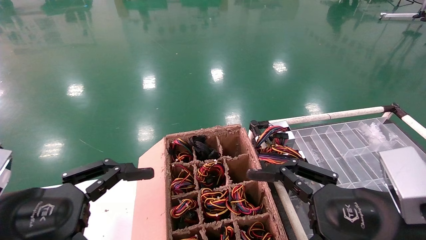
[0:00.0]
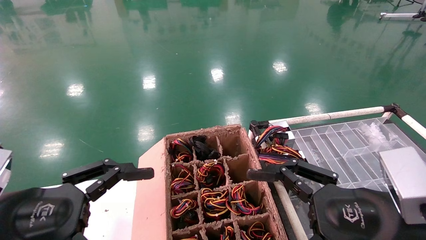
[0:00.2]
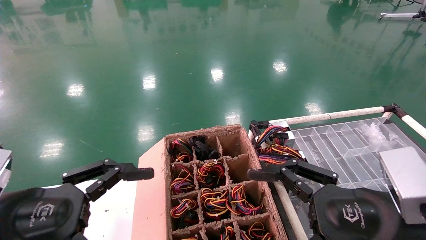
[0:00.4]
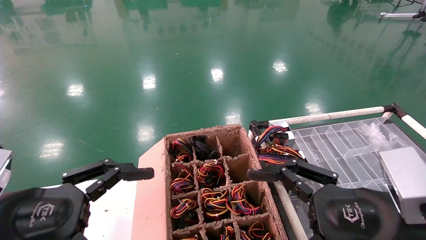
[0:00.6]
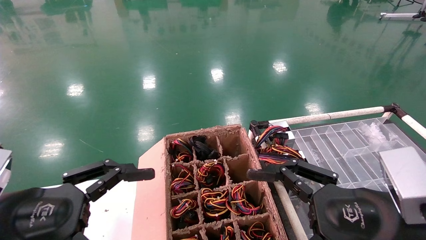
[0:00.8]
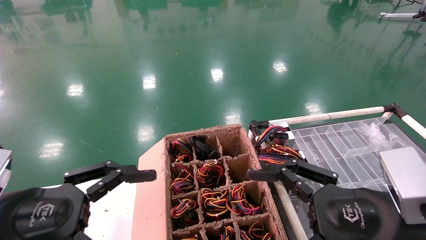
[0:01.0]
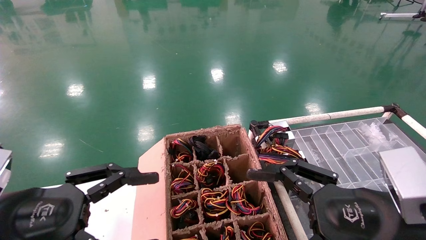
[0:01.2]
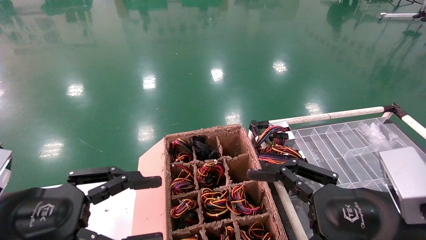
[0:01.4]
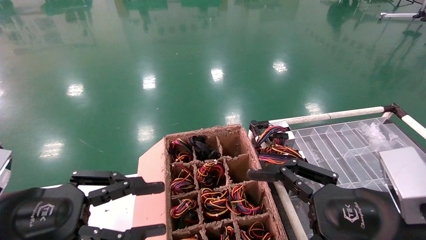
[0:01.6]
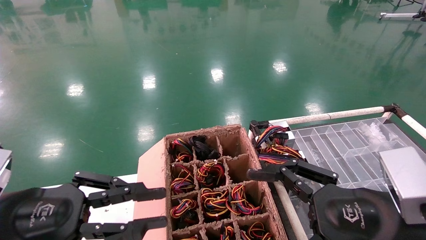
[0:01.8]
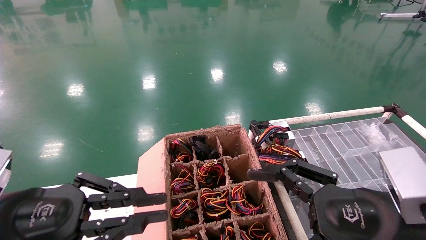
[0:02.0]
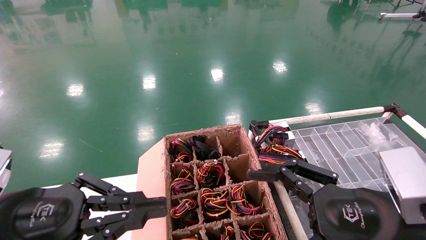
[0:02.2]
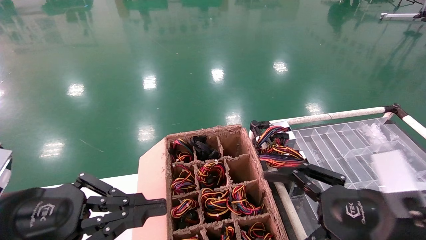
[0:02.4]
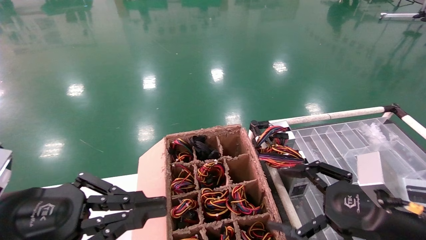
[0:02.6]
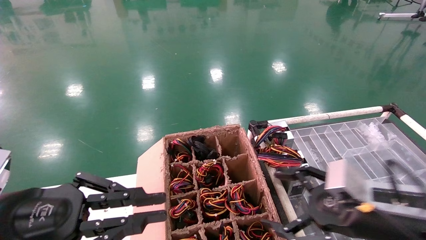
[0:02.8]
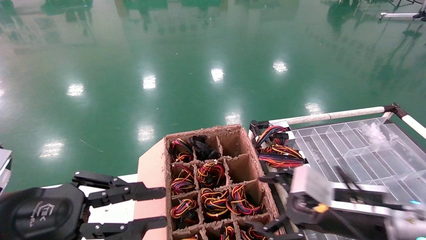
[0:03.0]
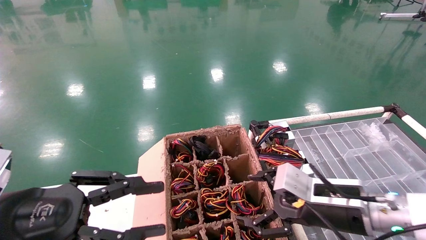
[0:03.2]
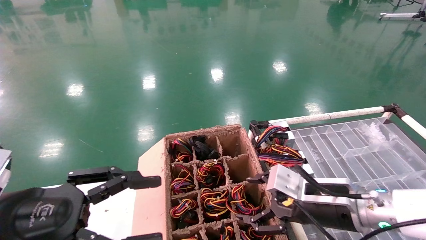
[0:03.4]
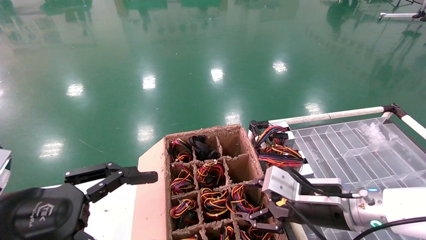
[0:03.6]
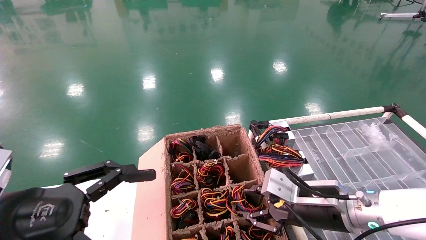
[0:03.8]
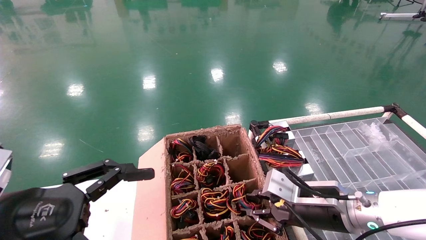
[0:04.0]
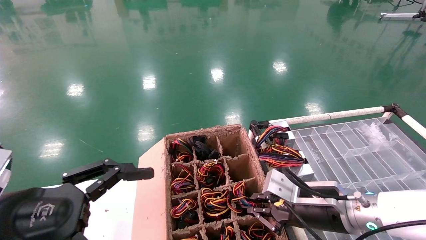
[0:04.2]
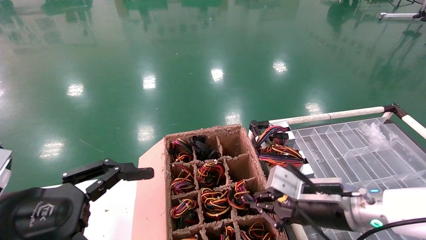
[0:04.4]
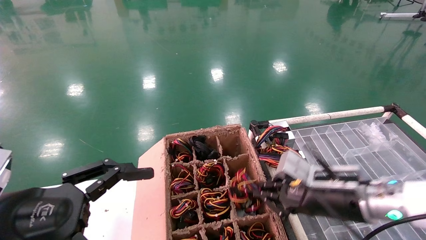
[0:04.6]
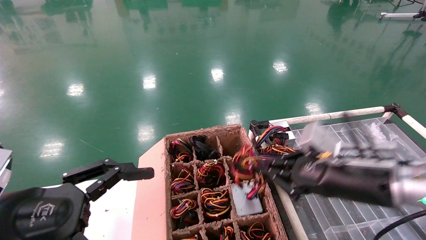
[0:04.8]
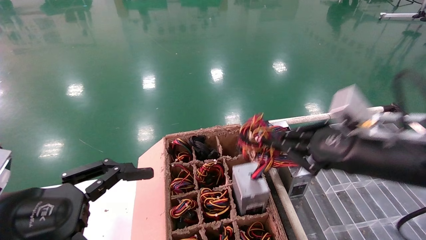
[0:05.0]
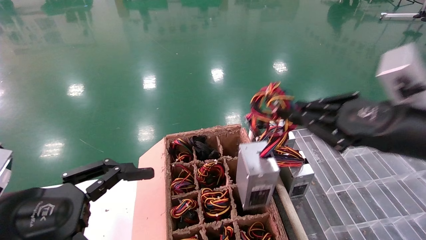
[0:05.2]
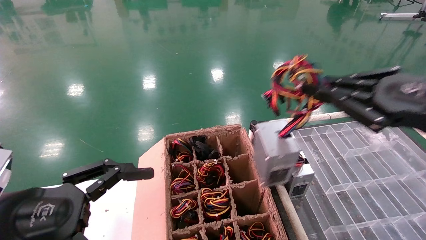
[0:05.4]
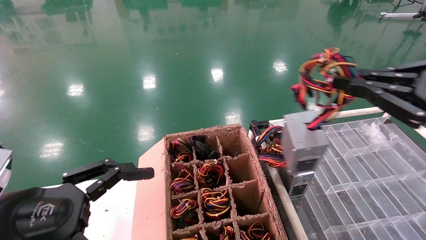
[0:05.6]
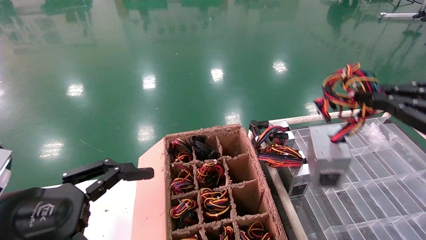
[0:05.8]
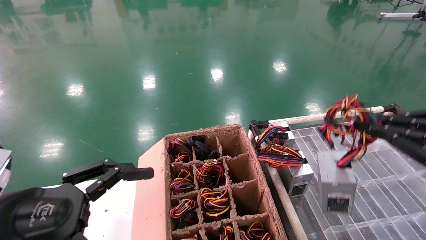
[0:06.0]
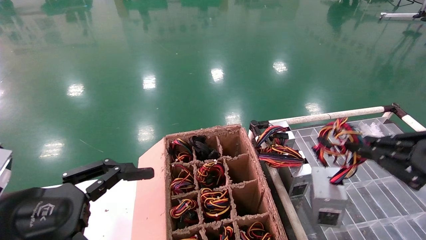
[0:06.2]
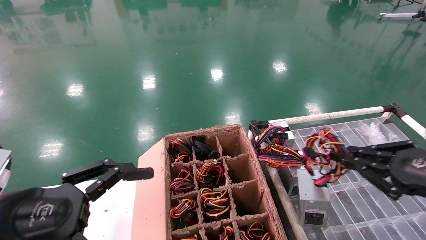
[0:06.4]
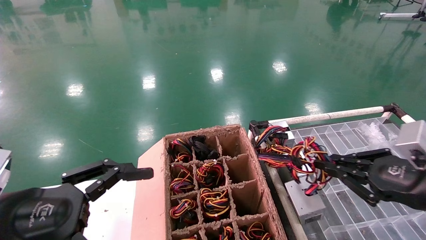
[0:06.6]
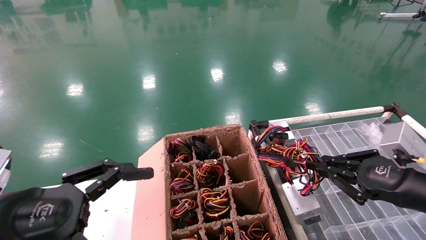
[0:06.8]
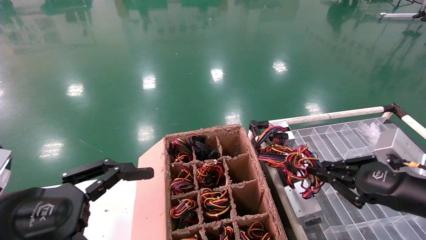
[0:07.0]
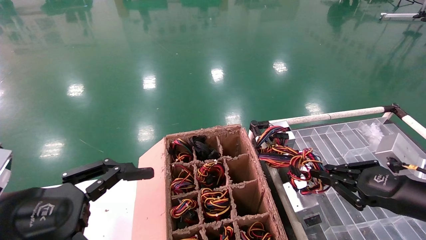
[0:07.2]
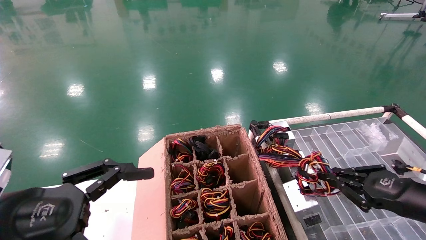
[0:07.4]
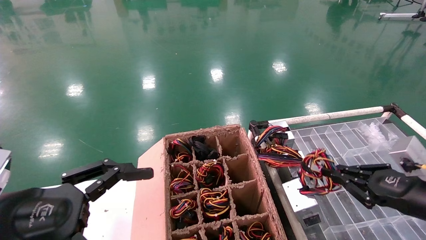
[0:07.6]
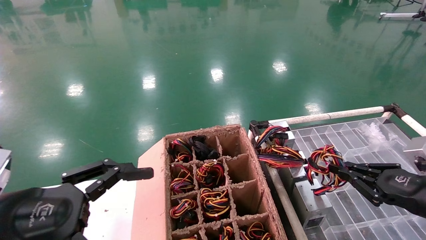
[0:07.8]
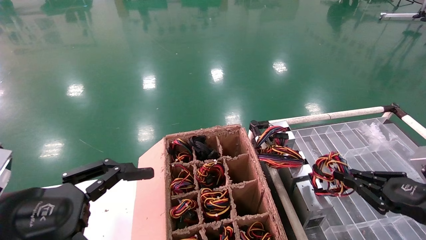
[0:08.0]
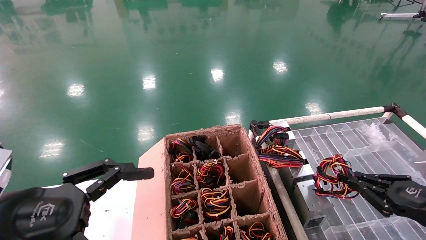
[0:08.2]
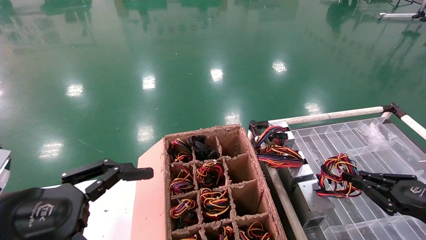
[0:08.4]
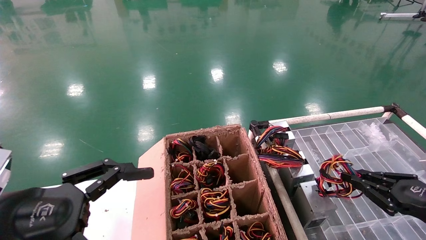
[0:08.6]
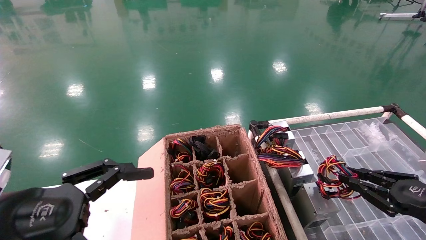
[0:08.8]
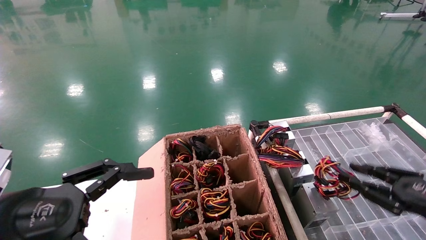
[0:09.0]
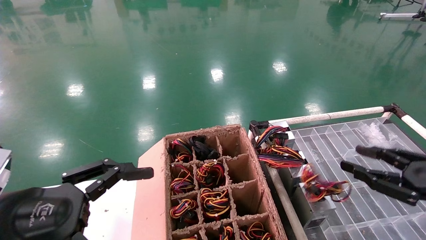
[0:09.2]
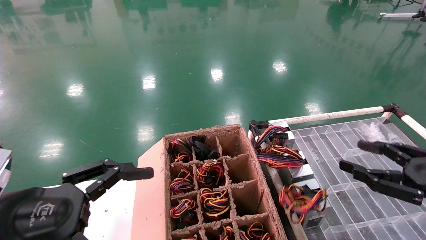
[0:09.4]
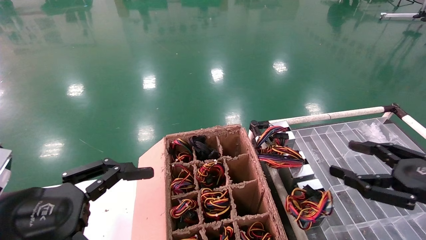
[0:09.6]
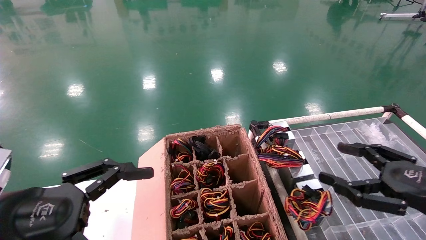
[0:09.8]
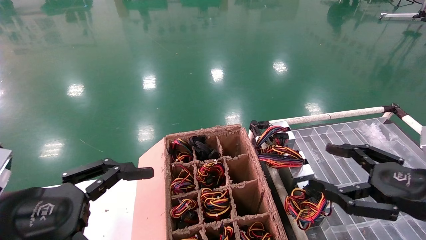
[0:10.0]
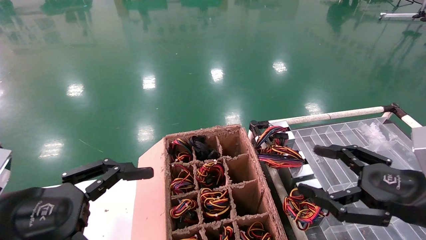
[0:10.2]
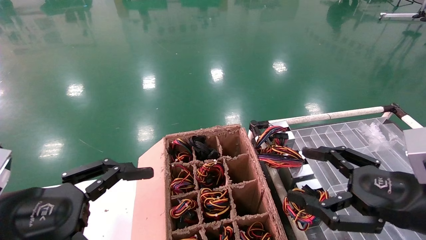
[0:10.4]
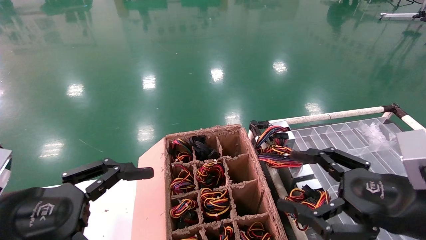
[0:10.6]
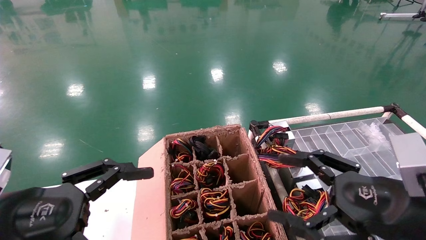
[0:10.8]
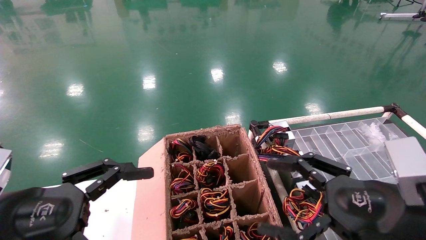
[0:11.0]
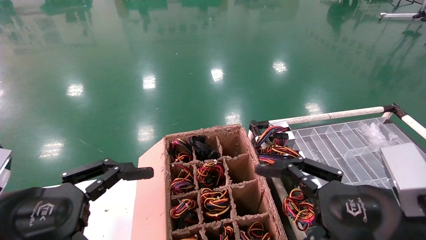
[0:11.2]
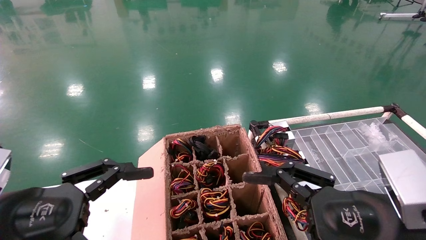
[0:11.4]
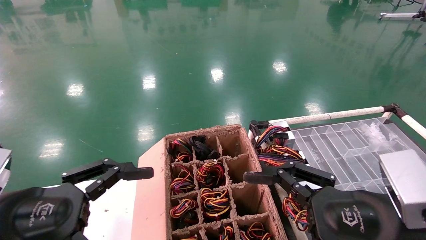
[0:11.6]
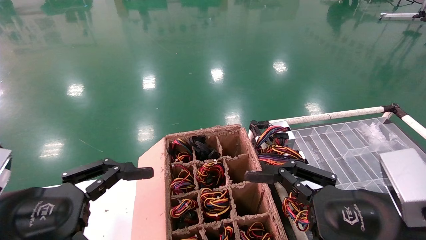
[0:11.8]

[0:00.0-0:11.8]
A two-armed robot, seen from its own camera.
Step, 0:02.4 to 0:04.4: Grab and lift the power supply from the large box.
Step, 0:04.6 to 0:08.8: Place the power supply on the operating table.
0:00.0 to 0:01.4: Neither gripper changes place.
0:01.4 to 0:03.0: The right gripper is displaced forward by roughly 10 cm, while the left gripper closes up.
0:03.0 to 0:04.4: The right gripper closes up, while the left gripper opens up.
0:04.4 to 0:06.0: The right gripper heads to the right, backward and upward, covering about 25 cm.
0:06.0 to 0:07.4: The right gripper travels downward and forward by about 10 cm.
0:07.4 to 0:08.8: The right gripper ends up roughly 5 cm from where it was.
0:08.8 to 0:10.4: The right gripper travels to the left by some 10 cm, and opens.
0:10.4 to 0:11.8: The right gripper shifts about 5 cm to the left.
